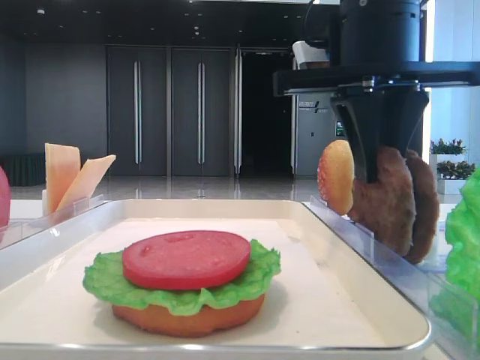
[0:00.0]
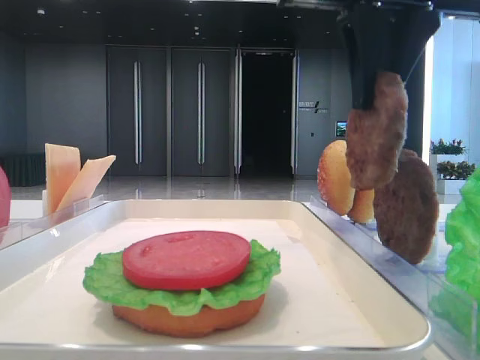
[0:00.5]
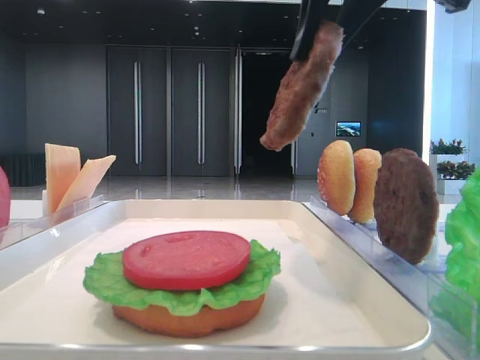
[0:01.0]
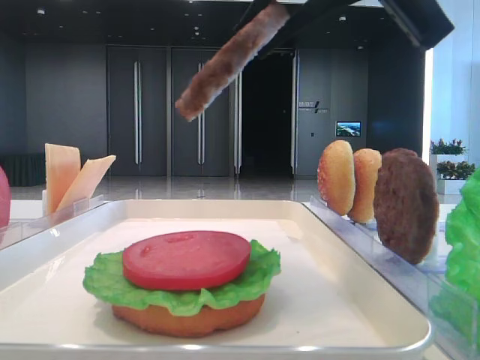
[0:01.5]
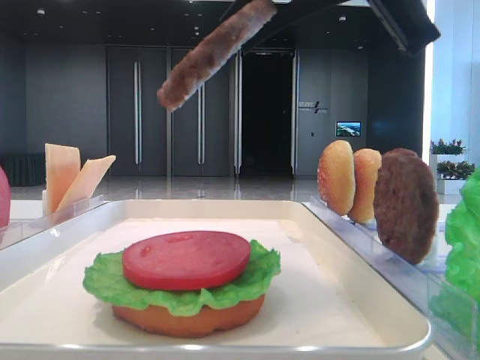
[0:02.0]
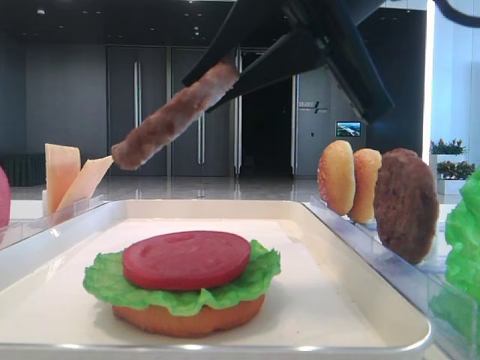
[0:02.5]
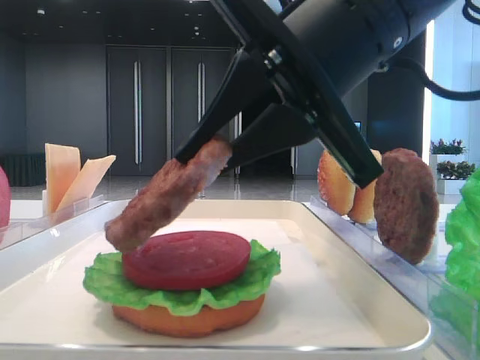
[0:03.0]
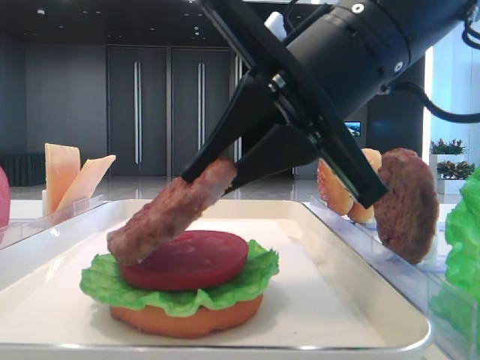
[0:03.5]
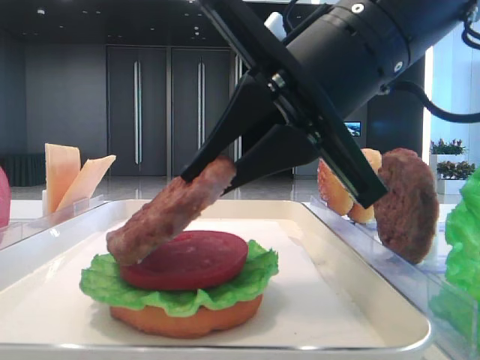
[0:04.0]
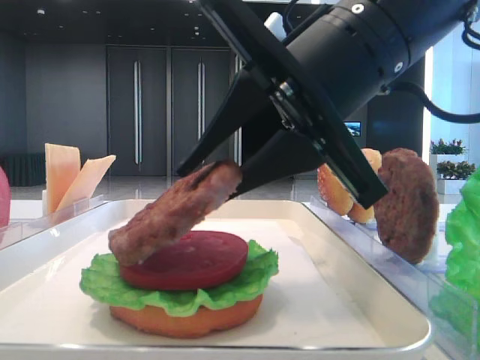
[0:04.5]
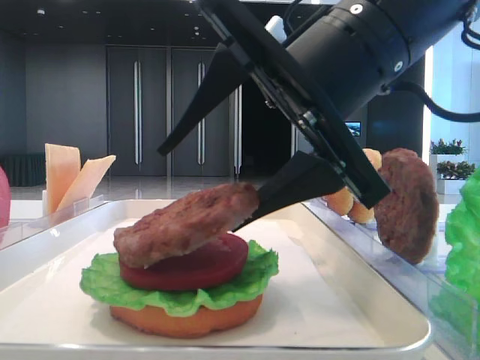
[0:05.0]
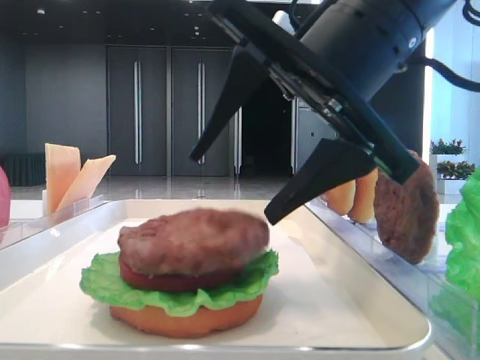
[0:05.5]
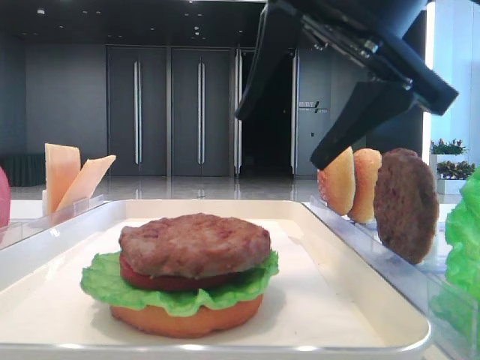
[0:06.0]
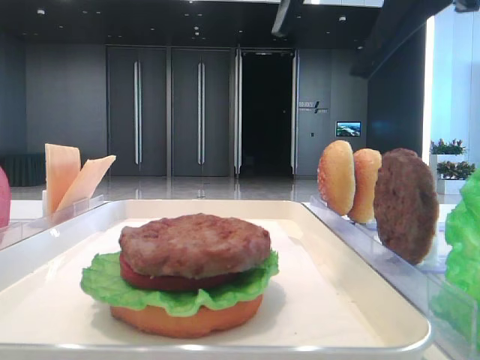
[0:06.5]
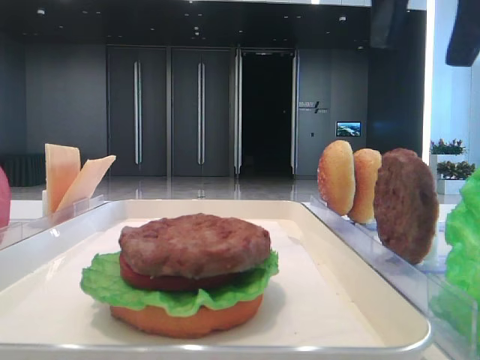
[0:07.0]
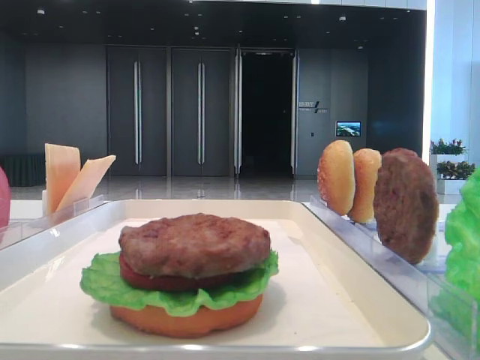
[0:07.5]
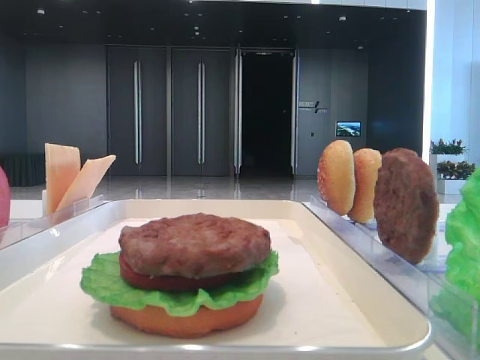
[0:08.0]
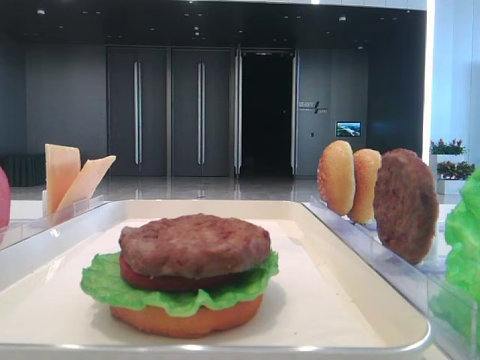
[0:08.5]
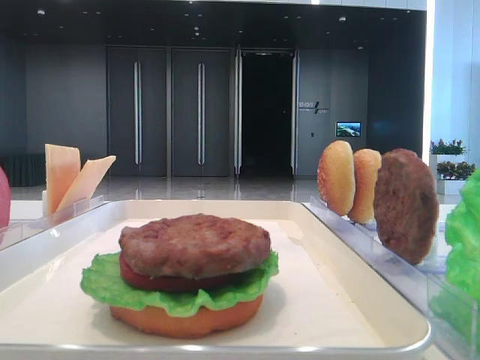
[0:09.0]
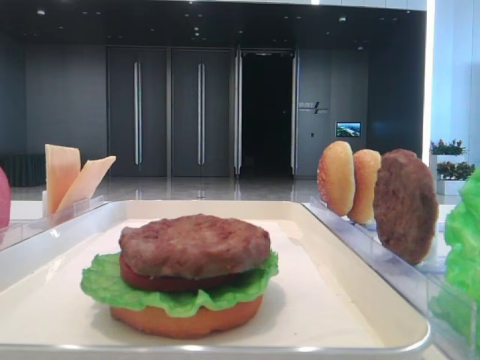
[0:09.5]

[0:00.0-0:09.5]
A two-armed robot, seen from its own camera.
Step, 0:00.0 to 0:05.5: Place the patty on the tomato slice with the right hand.
0:00.0 to 0:02.0: The right gripper is displaced backward by about 10 cm.
0:02.0 to 0:04.0: The right gripper shifts some 10 cm downward.
0:04.0 to 0:05.5: The right gripper opens.
0:05.5 to 0:07.5: The right gripper shifts roughly 20 cm to the right and upward.

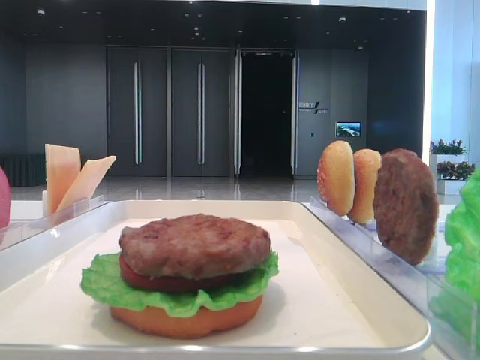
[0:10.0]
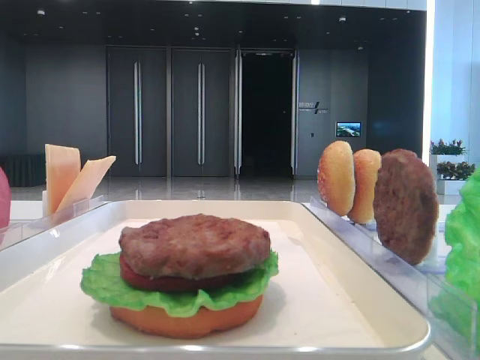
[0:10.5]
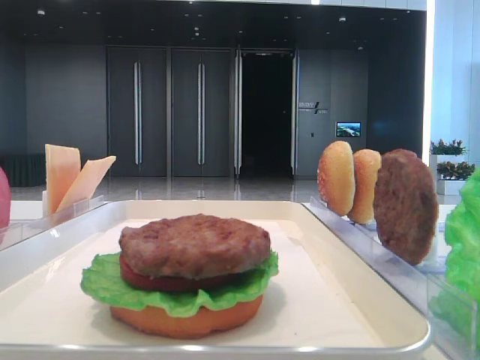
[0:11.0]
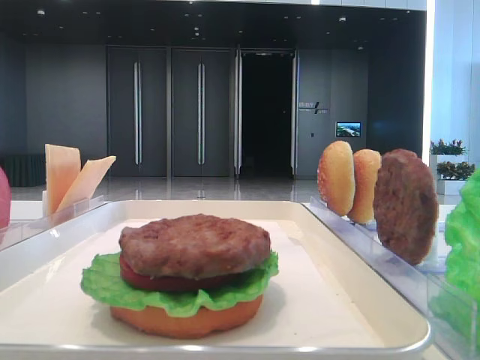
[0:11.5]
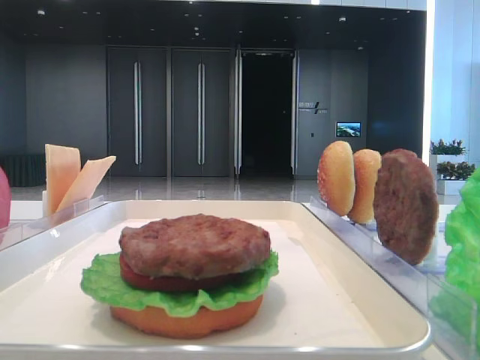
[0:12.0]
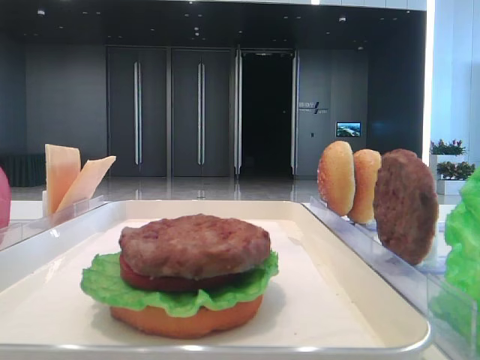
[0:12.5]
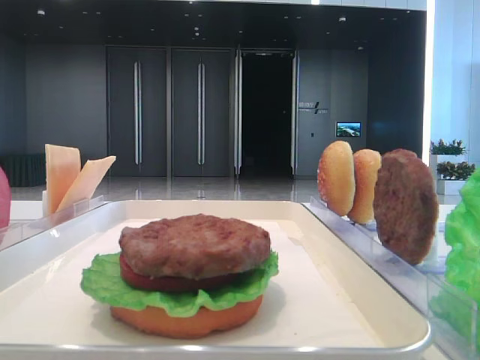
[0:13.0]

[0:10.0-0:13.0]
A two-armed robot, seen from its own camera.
0:10.0 to 0:11.5: Both grippers stay put.
